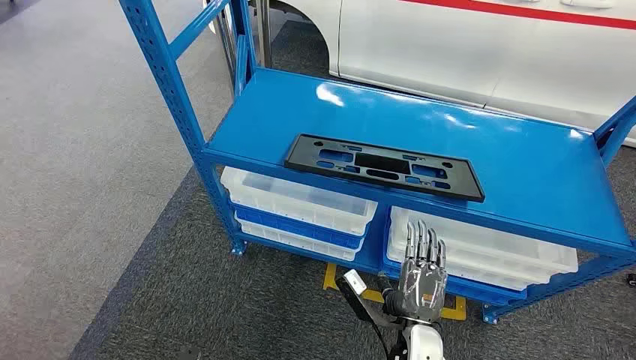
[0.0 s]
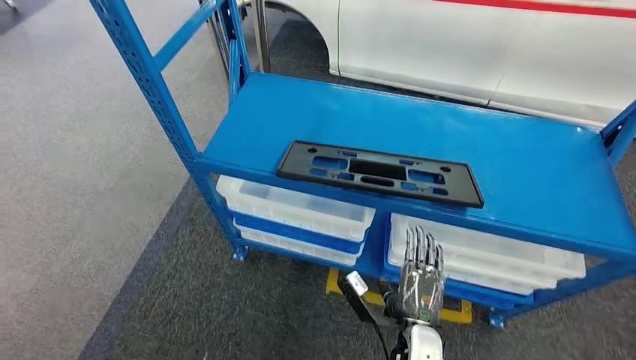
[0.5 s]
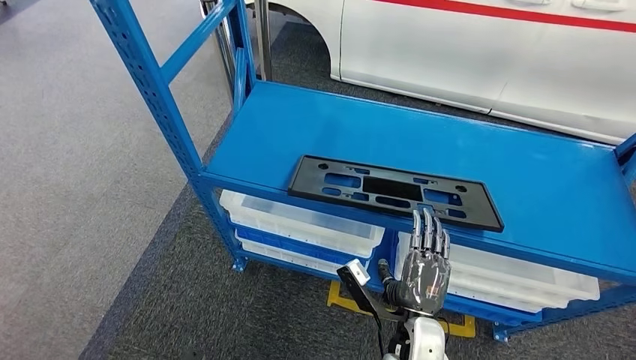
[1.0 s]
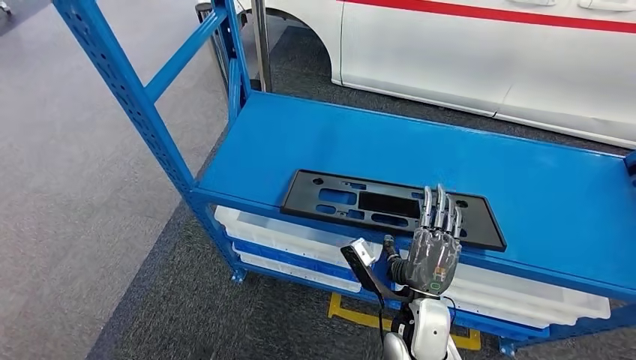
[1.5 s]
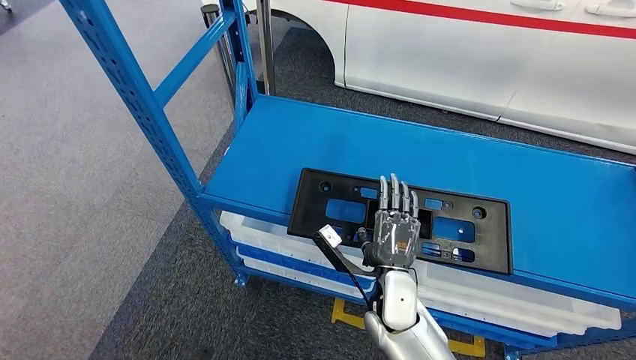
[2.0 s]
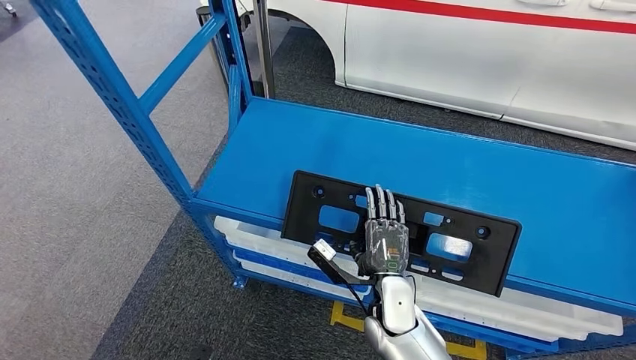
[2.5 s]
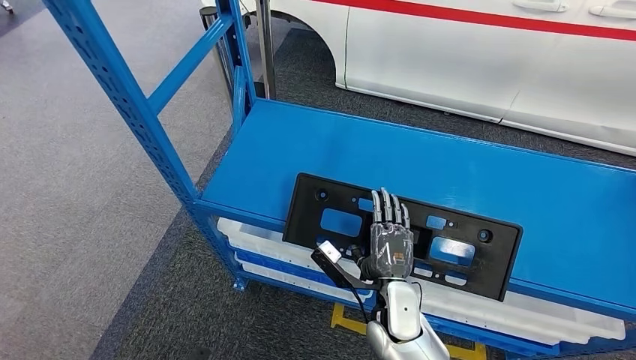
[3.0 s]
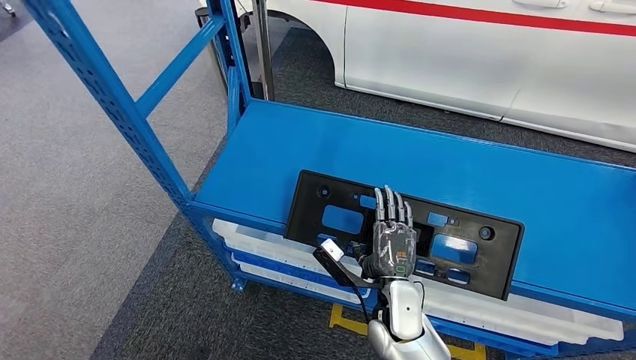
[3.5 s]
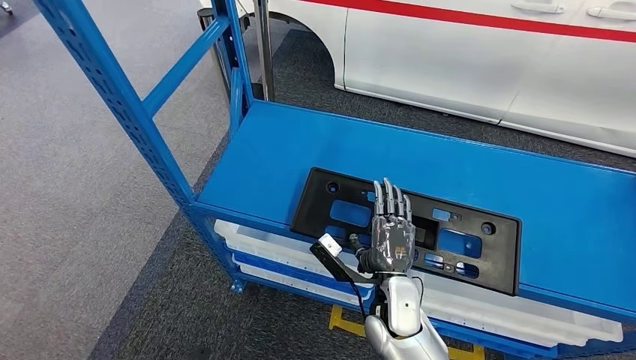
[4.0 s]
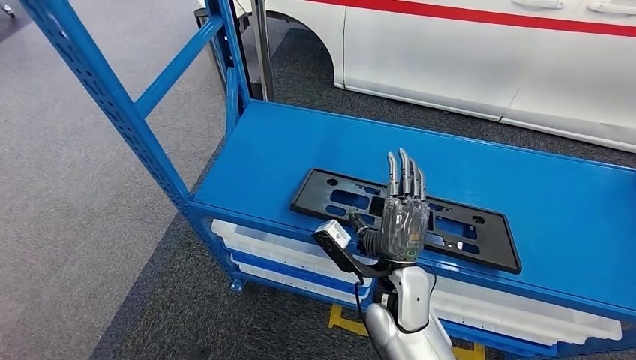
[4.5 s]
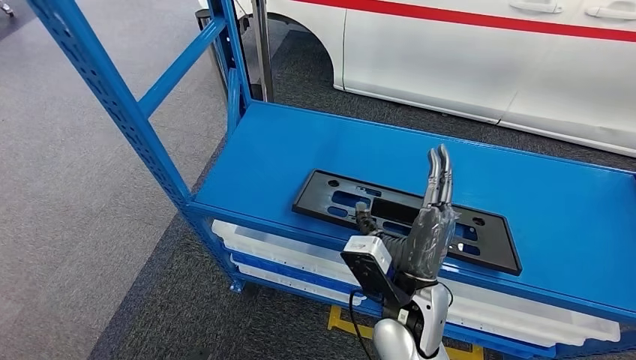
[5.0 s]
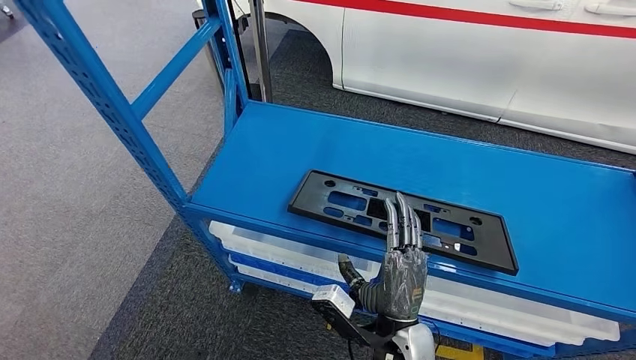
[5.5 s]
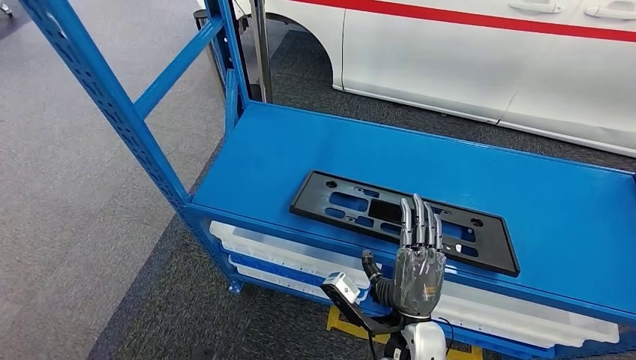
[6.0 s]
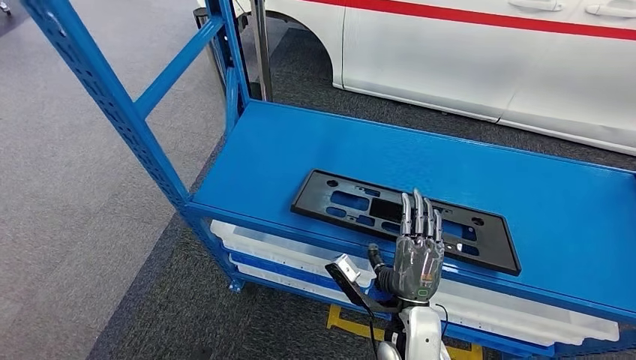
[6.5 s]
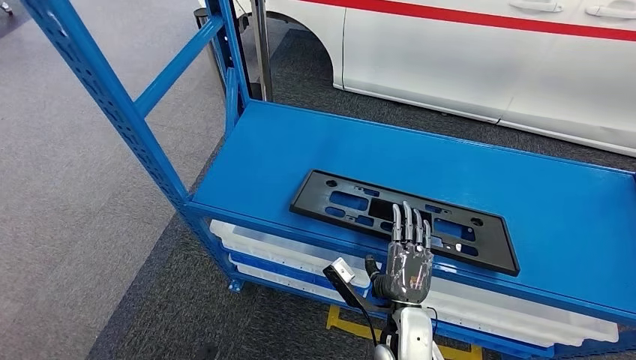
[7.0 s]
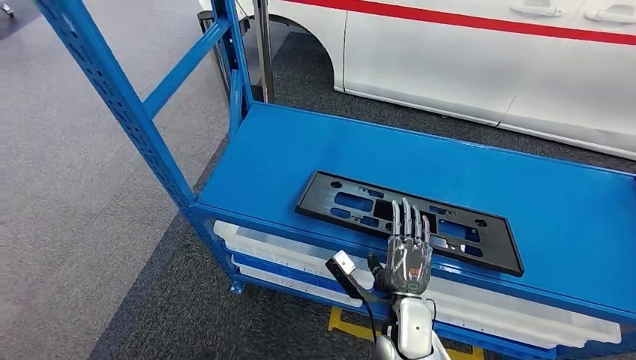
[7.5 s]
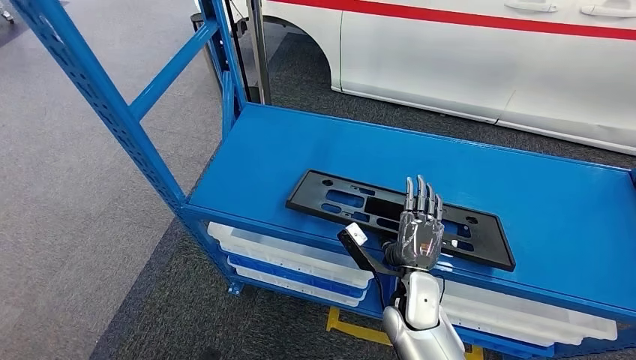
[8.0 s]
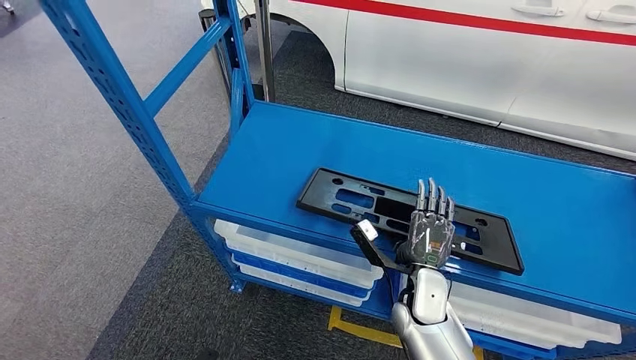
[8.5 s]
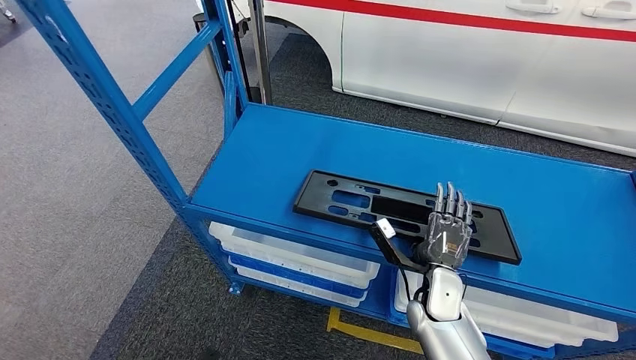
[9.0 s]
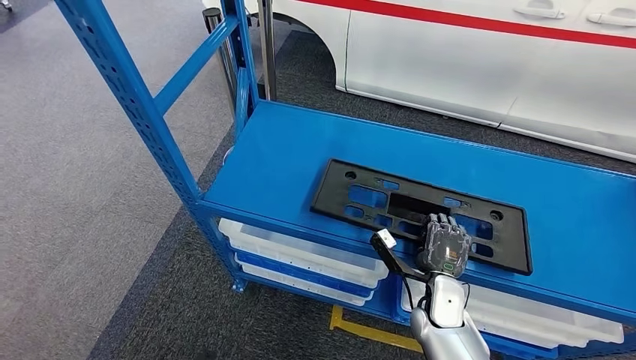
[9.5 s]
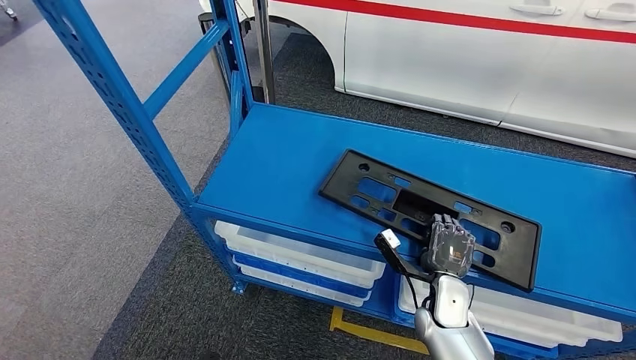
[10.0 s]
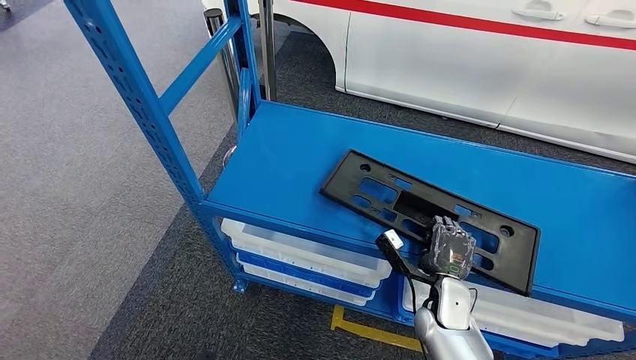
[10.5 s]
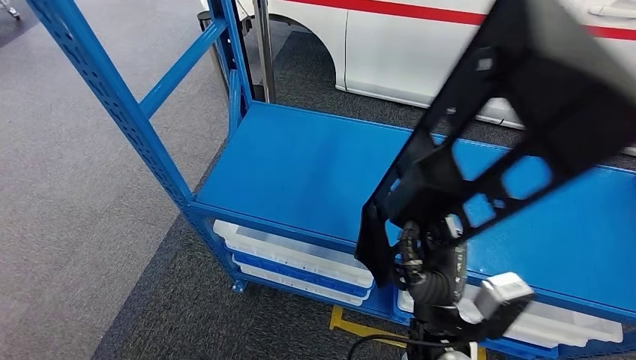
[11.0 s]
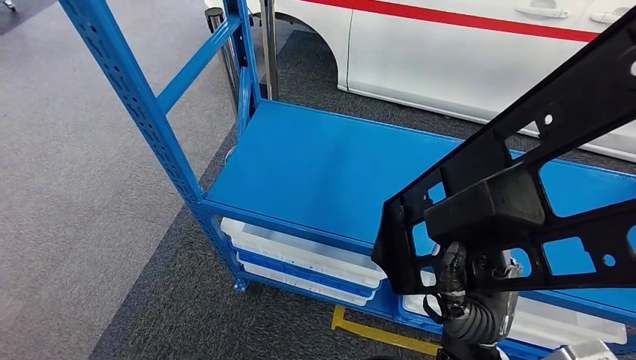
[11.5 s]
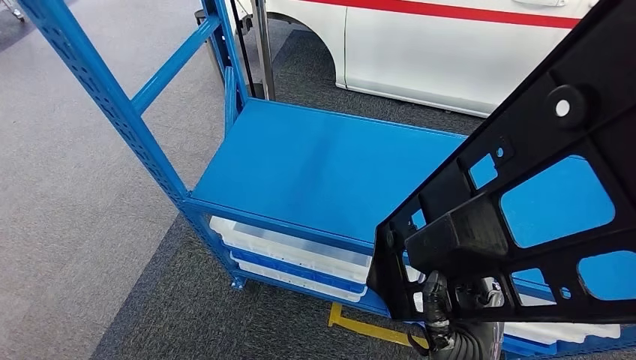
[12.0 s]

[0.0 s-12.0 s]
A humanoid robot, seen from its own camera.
Step, 0.0 to 11.5 s: Pick up the large parts from the shelf.
4.0 to 6.0 s: The right hand heads backward, covering about 5 cm, and reaches roughly 10 cm upward, then returns.
6.0 to 8.0 s: The right hand moves forward, roughly 10 cm.

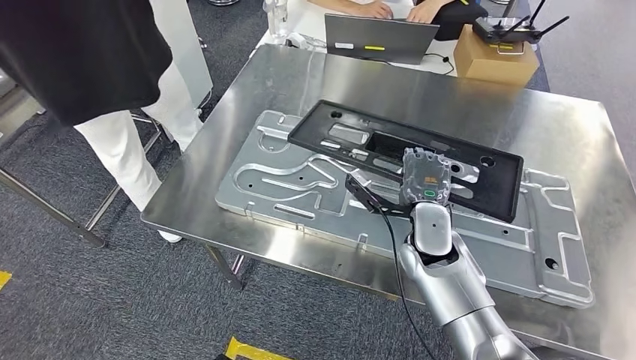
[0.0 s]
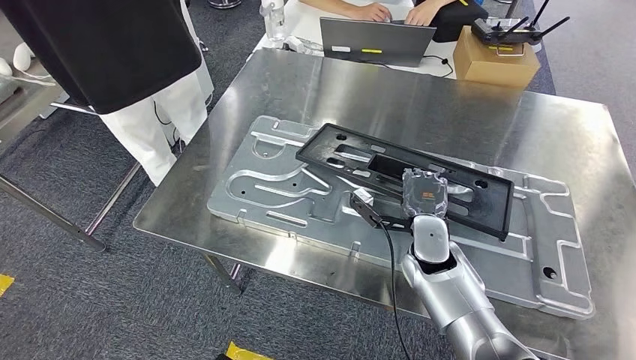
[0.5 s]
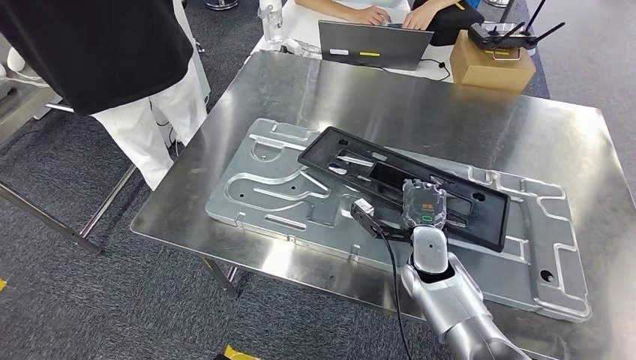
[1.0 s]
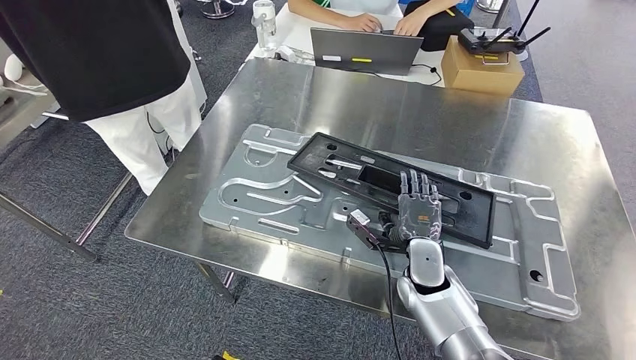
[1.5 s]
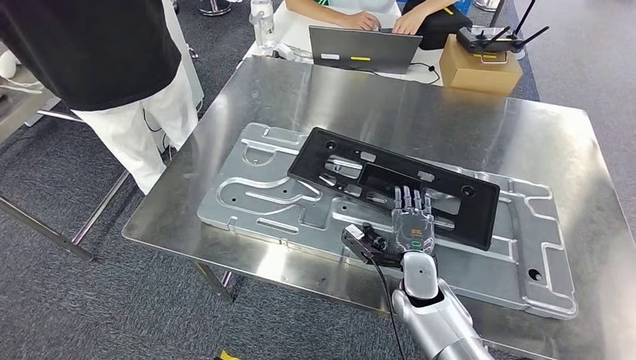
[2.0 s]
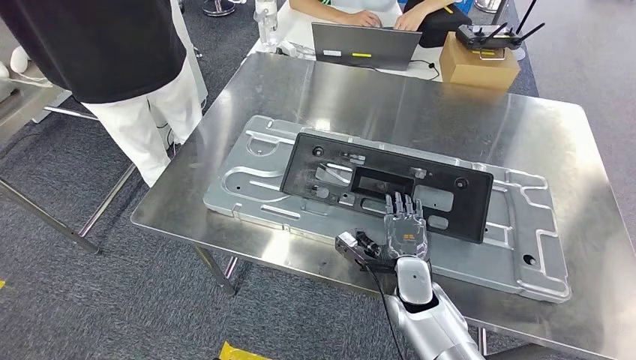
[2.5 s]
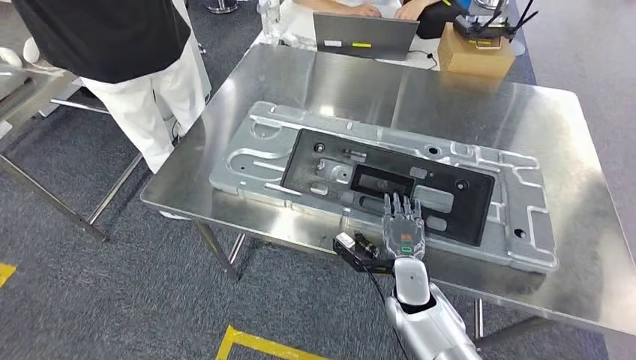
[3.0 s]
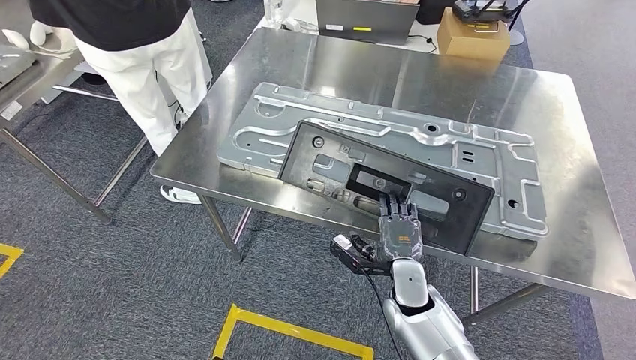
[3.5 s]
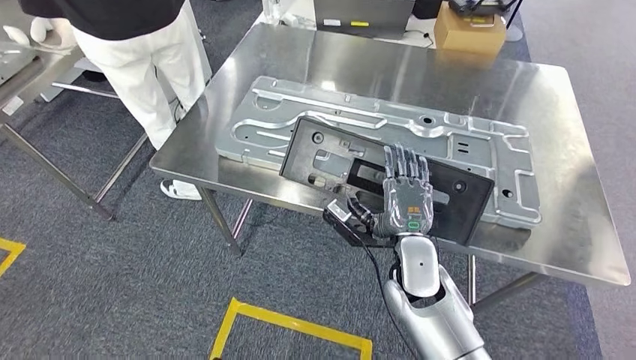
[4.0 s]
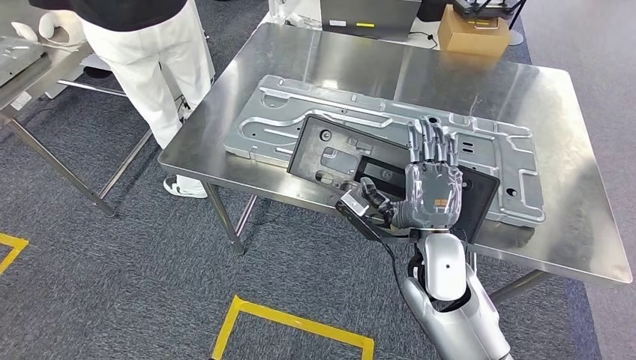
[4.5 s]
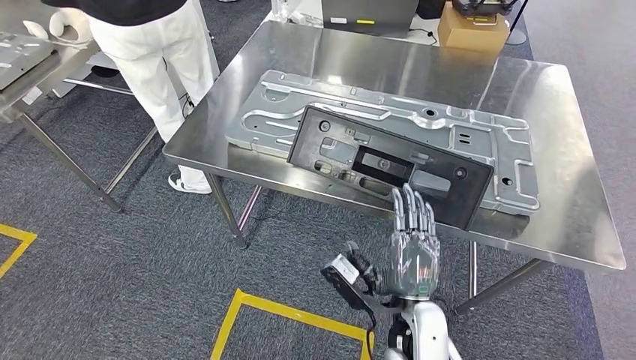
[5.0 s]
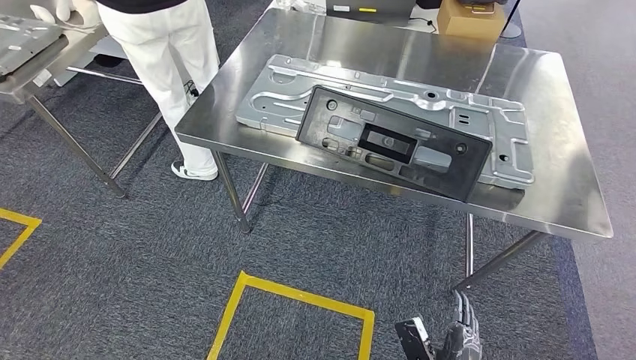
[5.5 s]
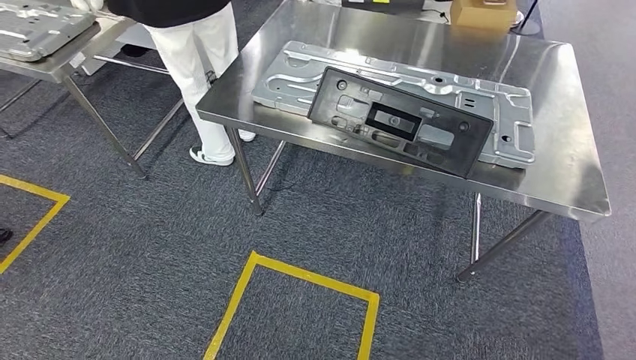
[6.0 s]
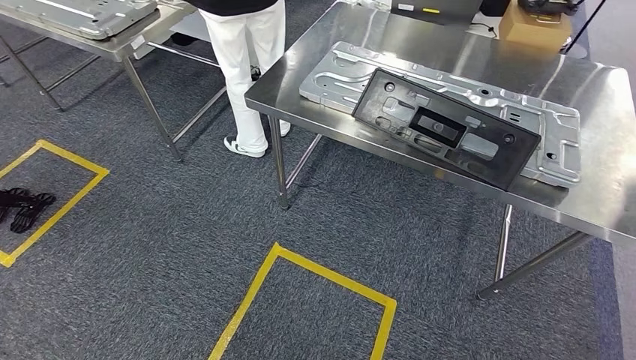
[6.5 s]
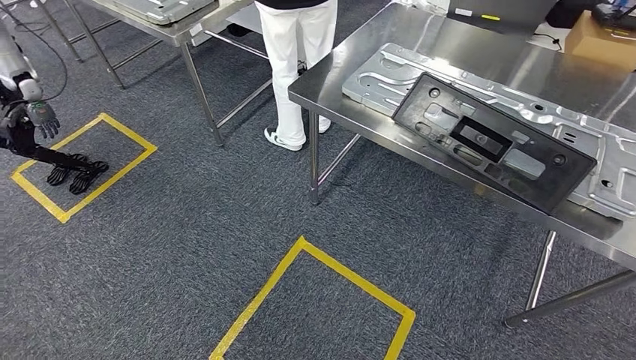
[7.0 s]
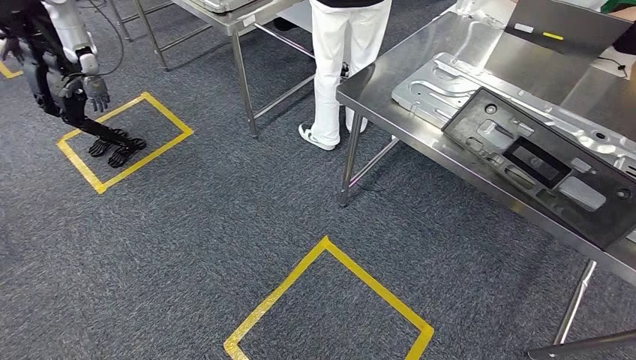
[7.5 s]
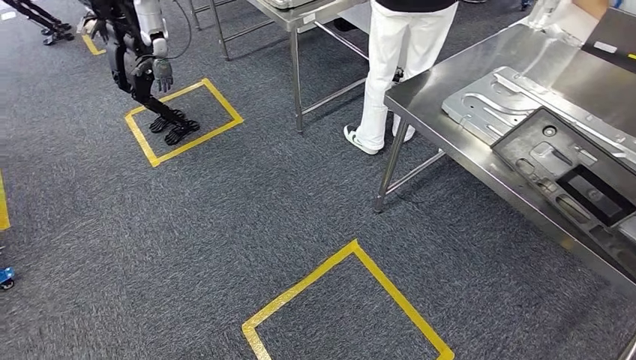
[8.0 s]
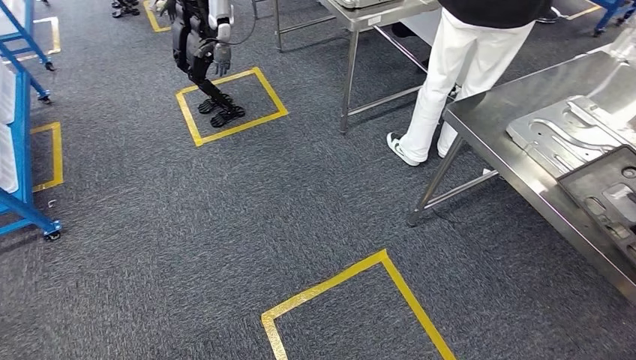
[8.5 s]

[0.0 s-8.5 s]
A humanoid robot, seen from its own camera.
Step, 1.0 to 4.0 s: Insert the large parts into the corresponding slots on the workbench.
Step, 6.5 to 8.5 s: Return to the initial position at the shelf.
